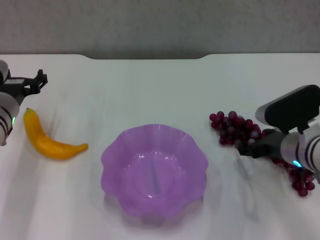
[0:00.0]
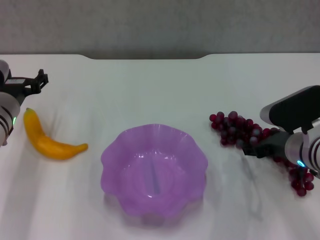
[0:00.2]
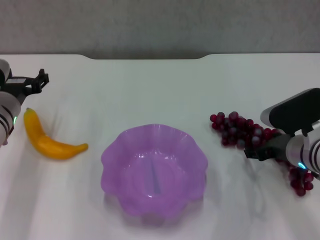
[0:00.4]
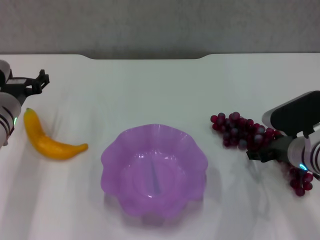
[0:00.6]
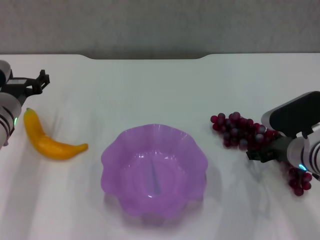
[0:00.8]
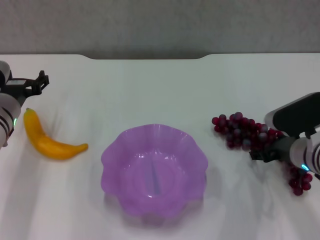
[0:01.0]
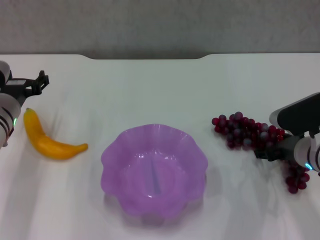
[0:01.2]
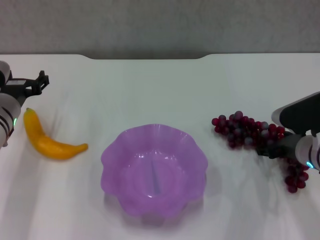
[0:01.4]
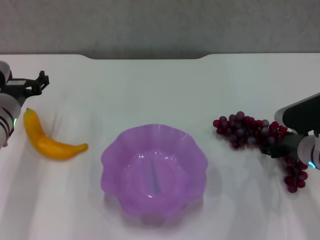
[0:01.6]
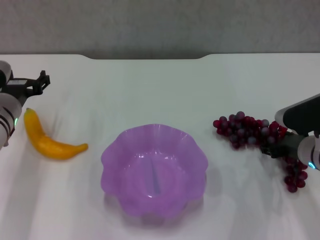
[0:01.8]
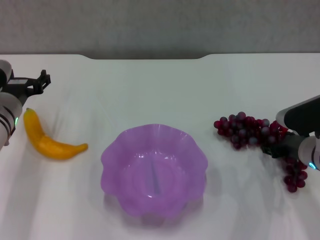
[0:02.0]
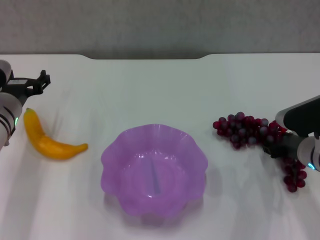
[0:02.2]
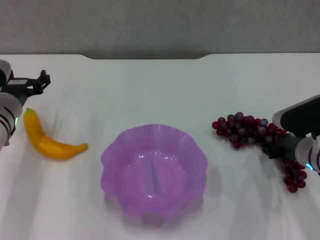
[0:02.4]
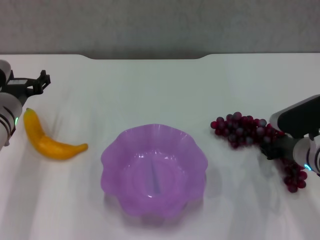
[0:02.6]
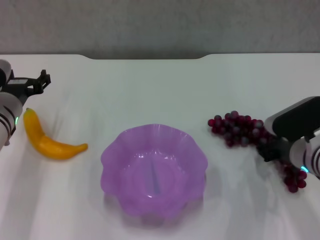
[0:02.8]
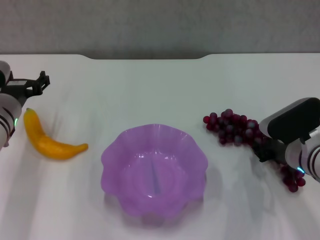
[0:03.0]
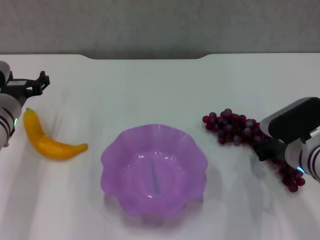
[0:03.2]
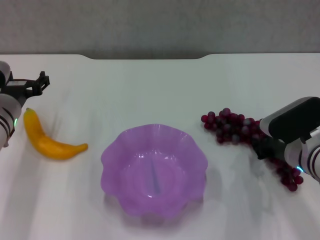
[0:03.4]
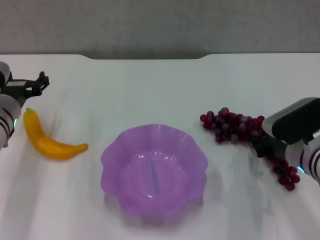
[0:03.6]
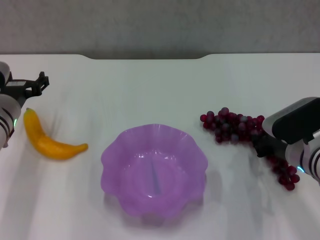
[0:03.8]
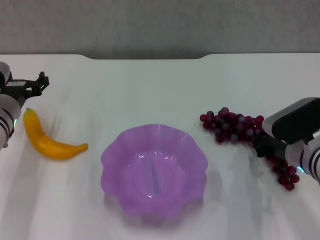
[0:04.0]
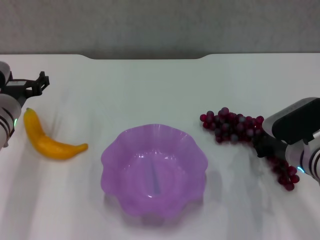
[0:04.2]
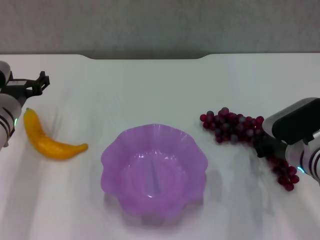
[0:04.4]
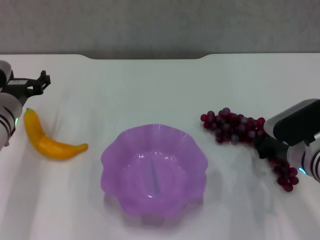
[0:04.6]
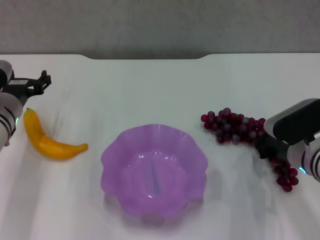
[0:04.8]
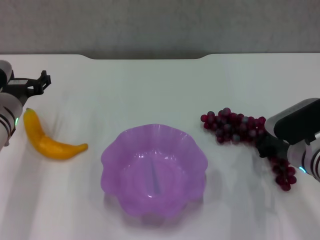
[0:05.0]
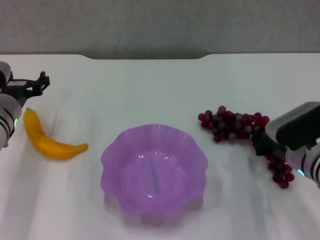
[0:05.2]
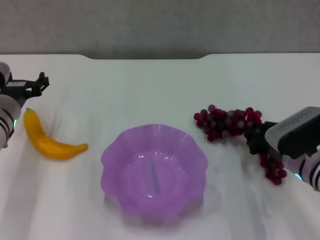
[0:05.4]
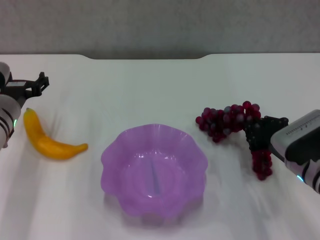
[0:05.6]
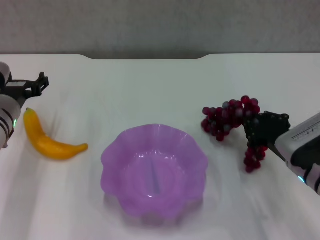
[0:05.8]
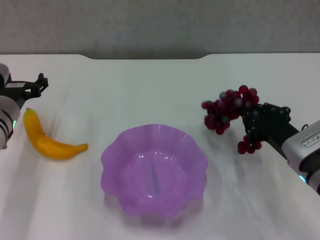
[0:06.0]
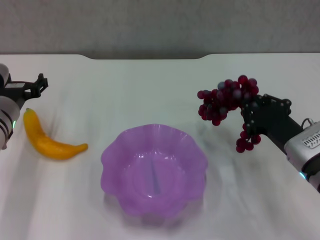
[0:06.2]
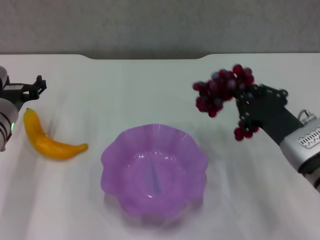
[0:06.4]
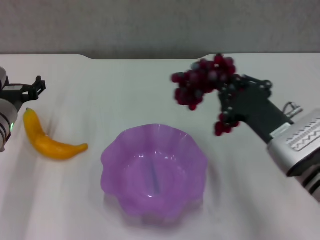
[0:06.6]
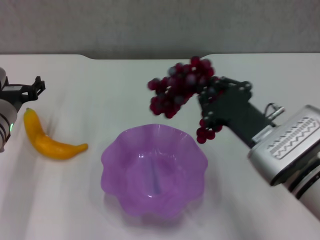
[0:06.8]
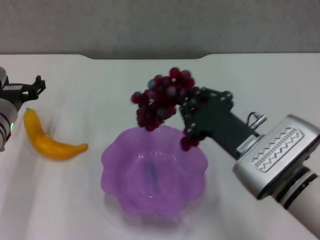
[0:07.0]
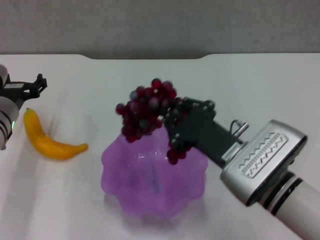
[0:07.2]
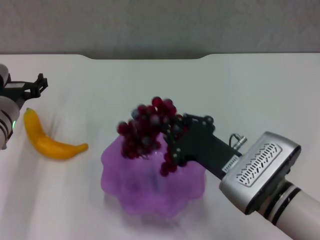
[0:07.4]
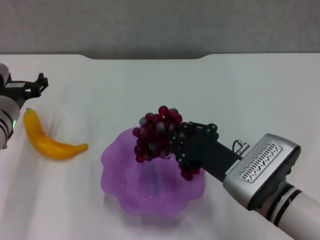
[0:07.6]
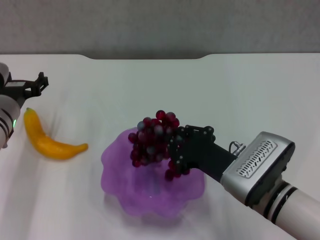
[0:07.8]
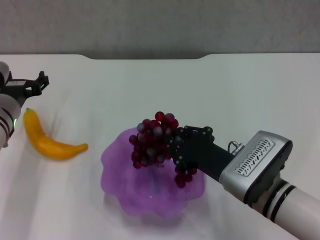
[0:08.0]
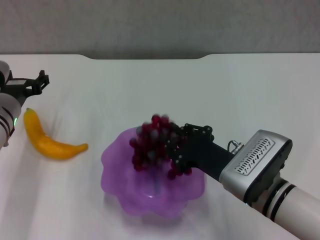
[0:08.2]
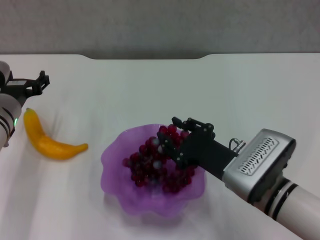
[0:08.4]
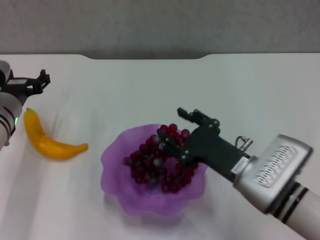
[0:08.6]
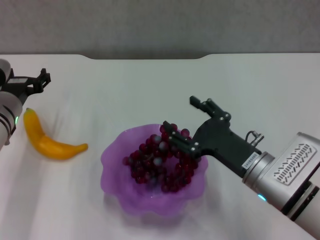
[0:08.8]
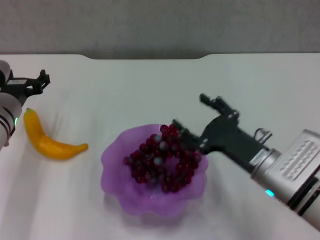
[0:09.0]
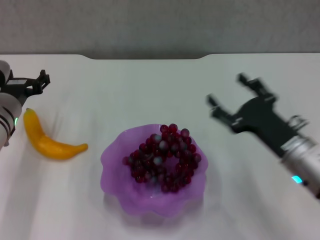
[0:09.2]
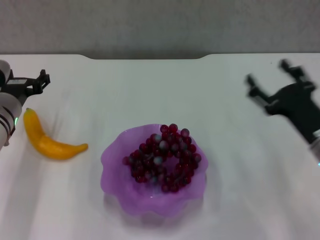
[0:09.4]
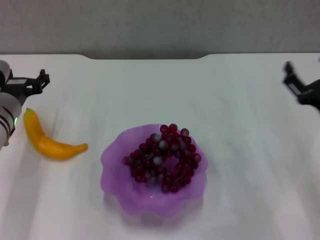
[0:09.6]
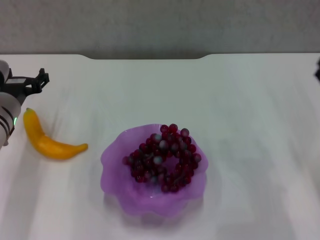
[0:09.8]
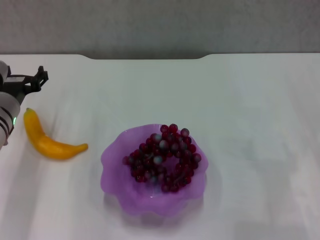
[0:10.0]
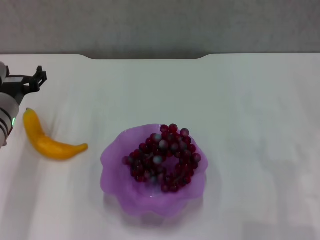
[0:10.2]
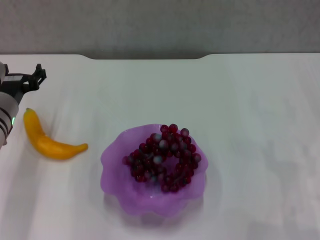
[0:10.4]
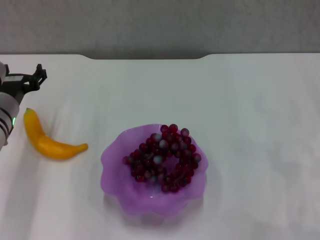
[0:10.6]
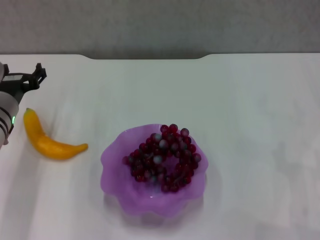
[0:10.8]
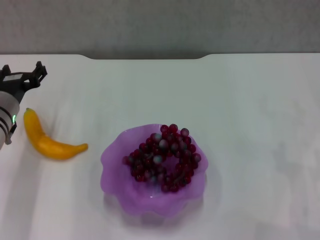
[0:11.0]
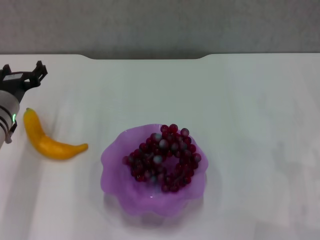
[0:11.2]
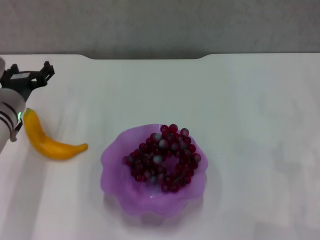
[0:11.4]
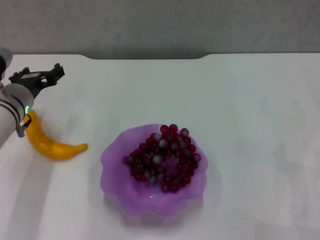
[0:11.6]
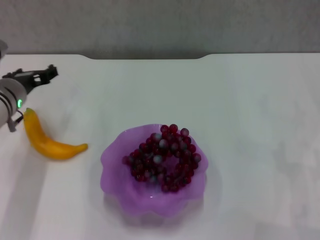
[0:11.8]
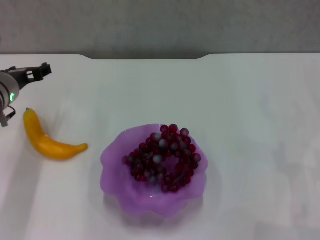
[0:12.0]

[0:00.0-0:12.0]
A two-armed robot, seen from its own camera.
Step, 0:00.0 to 0:04.6: Grasp the grape with right gripper.
Step, 0:04.8 to 0:08.2: Place the grape in the purple plate with right gripper.
0:00.0 to 0:01.6: The grippers move only a little.
0:01.6 to 0:03.0: The right gripper closes up.
0:03.0 to 0:04.4: The grippers make only small movements.
0:06.0 to 0:07.6: The right gripper travels to the left by some 10 cm.
0:07.6 to 0:09.0: The right gripper opens.
0:09.0 to 0:10.4: The right gripper goes some 15 cm to the right.
0:10.4 to 0:12.0: The grippers stay close to where they were, moving slightly.

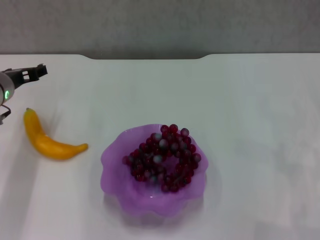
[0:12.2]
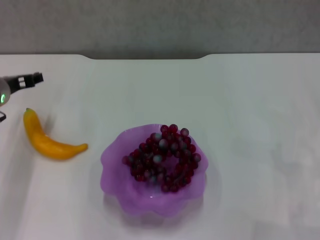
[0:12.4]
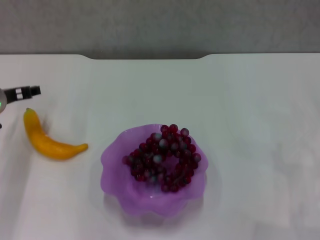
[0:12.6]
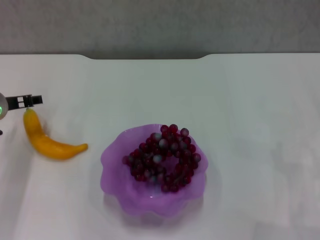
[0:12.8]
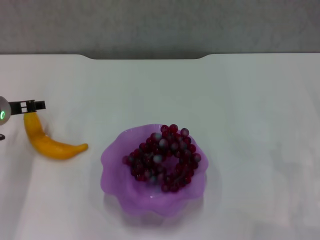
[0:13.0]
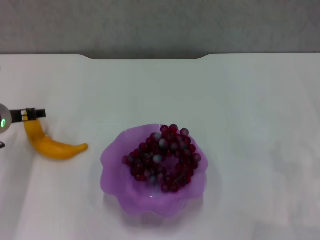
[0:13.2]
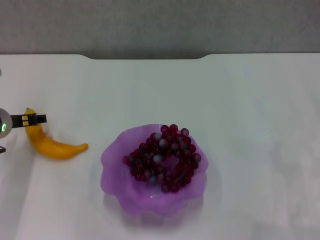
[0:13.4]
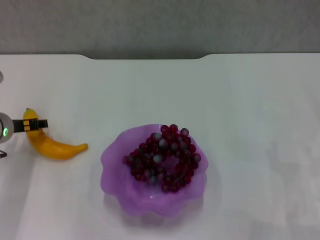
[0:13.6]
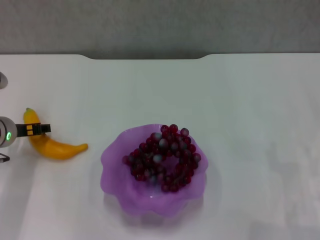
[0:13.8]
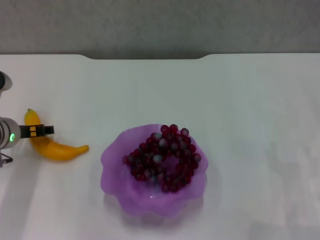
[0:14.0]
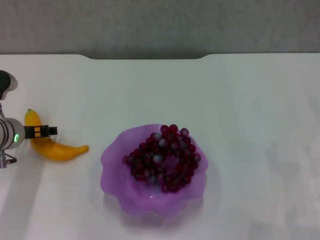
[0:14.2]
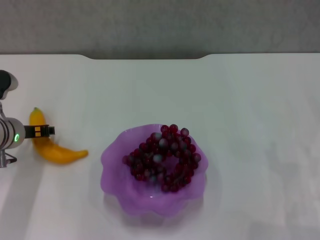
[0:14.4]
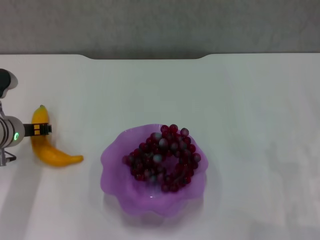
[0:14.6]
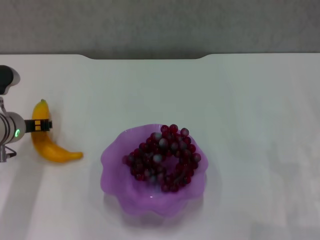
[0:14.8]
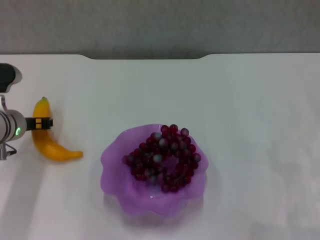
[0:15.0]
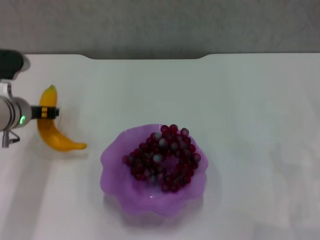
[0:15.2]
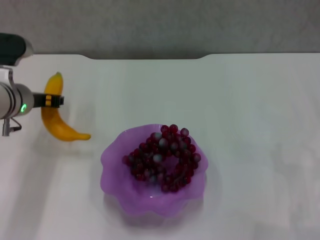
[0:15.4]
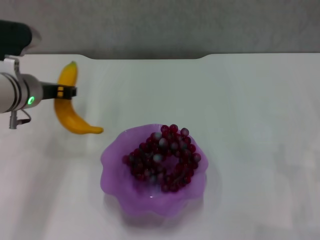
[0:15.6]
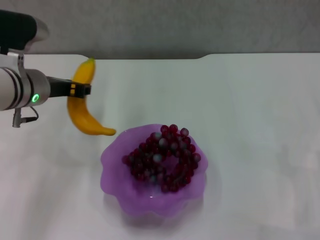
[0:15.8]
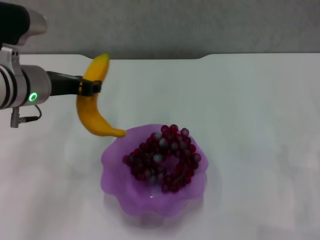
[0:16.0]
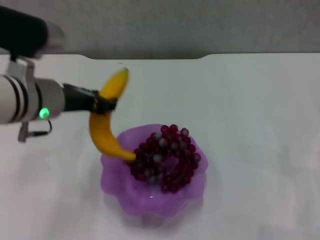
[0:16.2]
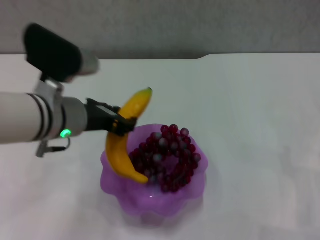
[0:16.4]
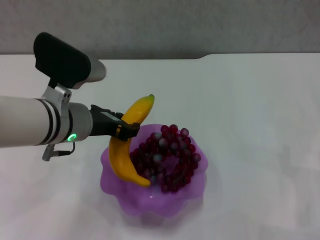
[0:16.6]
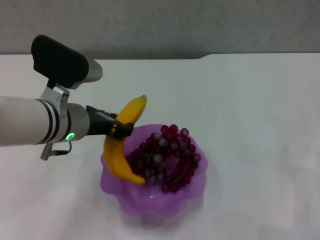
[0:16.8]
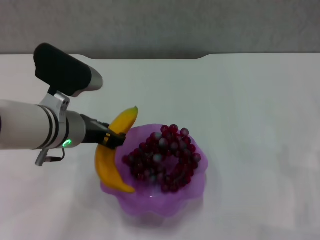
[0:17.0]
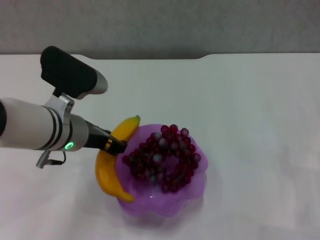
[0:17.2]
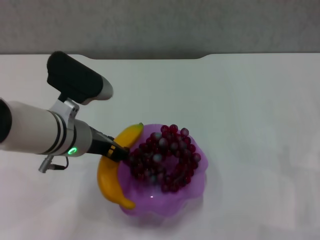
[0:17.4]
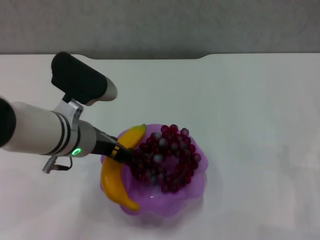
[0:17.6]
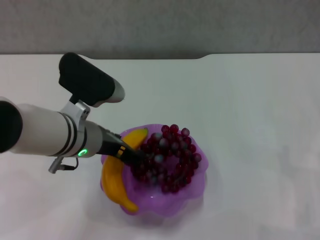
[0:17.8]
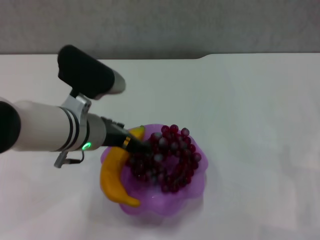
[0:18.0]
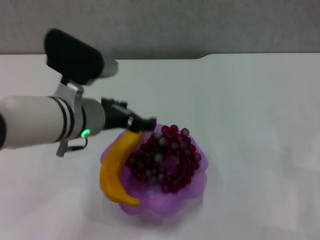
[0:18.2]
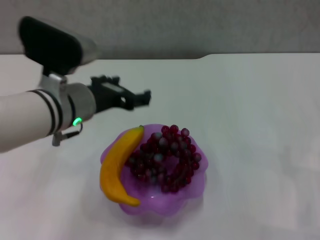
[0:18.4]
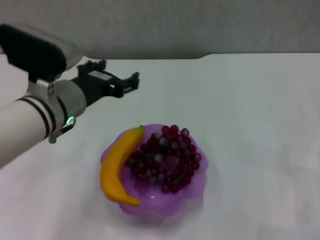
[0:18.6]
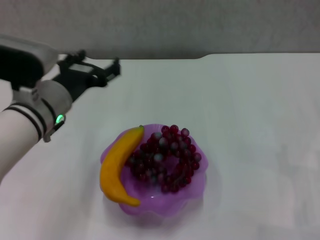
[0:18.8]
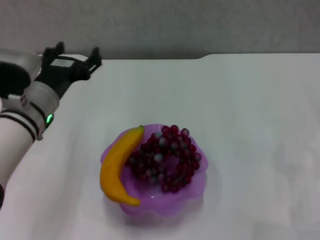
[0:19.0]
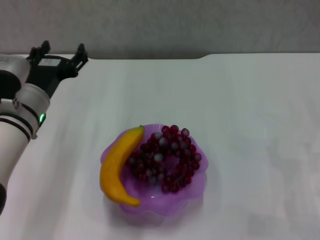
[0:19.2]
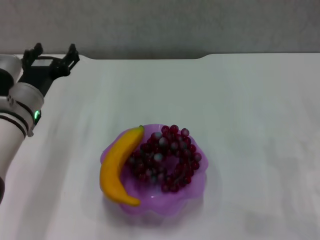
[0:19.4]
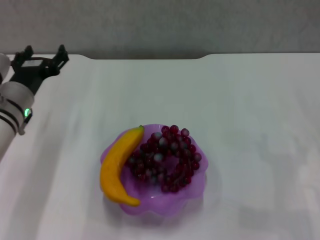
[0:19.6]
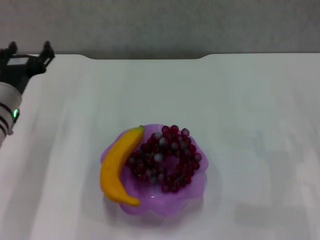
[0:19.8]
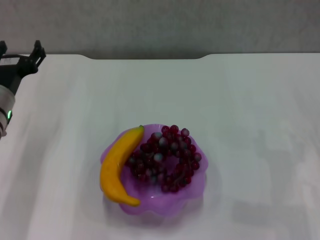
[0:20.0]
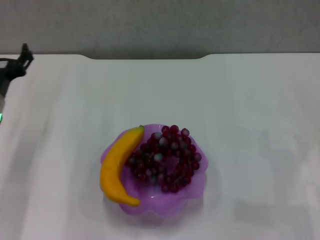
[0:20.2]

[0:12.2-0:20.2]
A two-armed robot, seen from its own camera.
Step, 0:12.2 to 0:14.8: Grasp the banana with left gripper.
Step, 0:15.0 to 0:18.0: Place the banana in the purple plate with left gripper.
0:12.2 to 0:13.8: The left gripper changes place by some 5 cm.
0:13.8 to 0:15.4: The left gripper travels upward by some 5 cm, and closes its fingers.
0:15.4 to 0:17.0: The left gripper travels to the right and backward by roughly 10 cm.
0:17.0 to 0:18.6: The left gripper opens.
0:18.6 to 0:20.2: The left gripper is displaced to the left and downward by roughly 15 cm.
